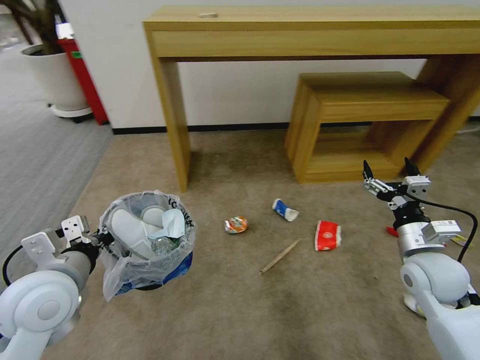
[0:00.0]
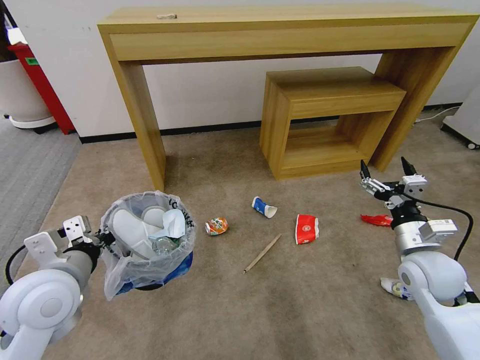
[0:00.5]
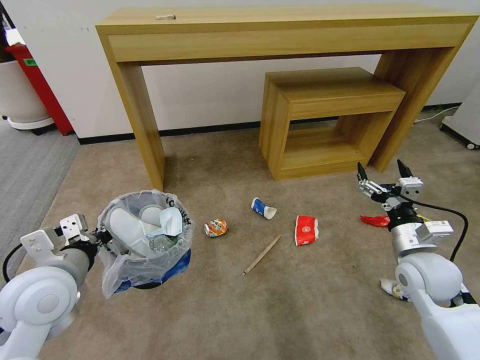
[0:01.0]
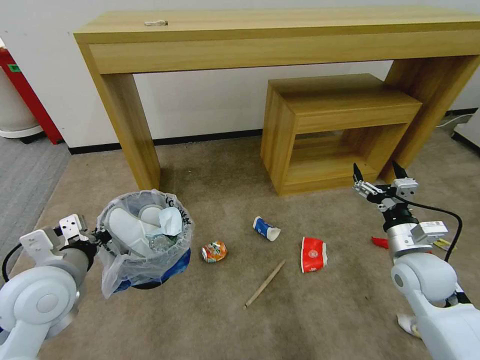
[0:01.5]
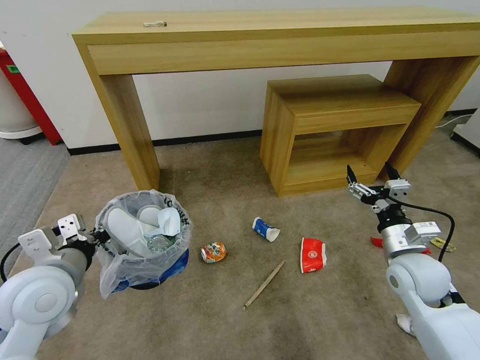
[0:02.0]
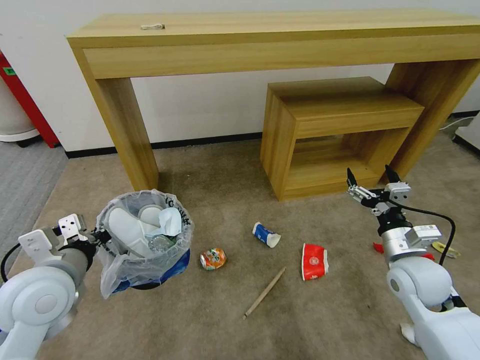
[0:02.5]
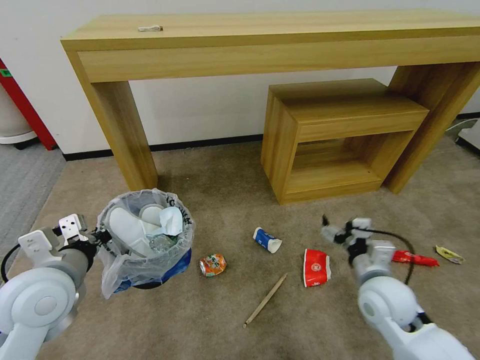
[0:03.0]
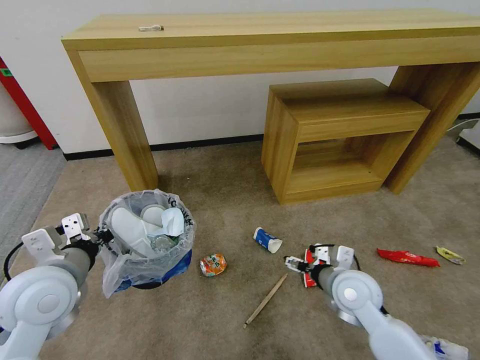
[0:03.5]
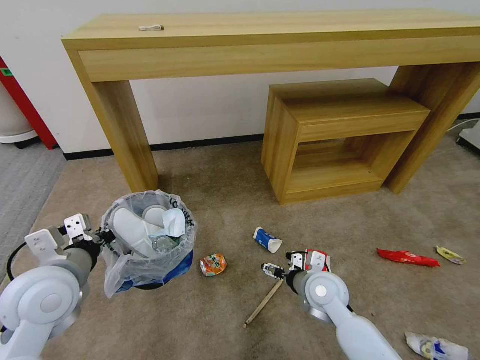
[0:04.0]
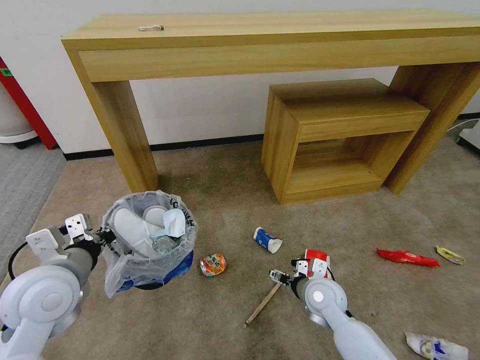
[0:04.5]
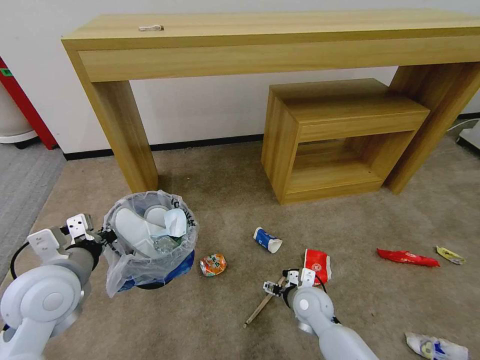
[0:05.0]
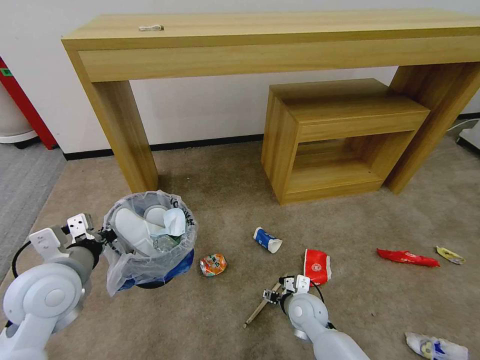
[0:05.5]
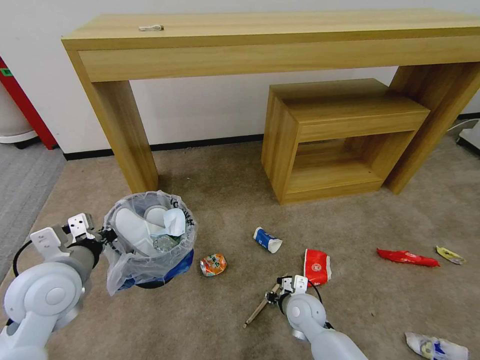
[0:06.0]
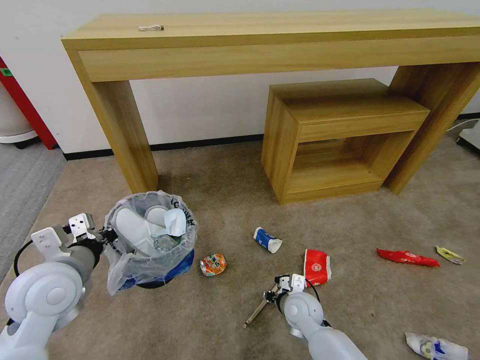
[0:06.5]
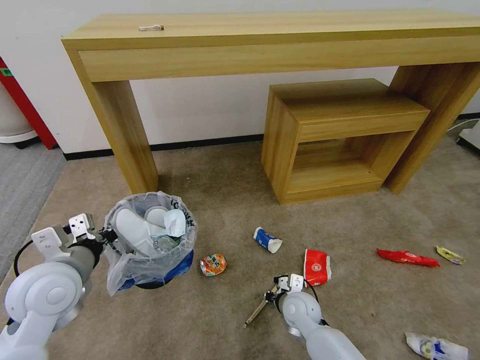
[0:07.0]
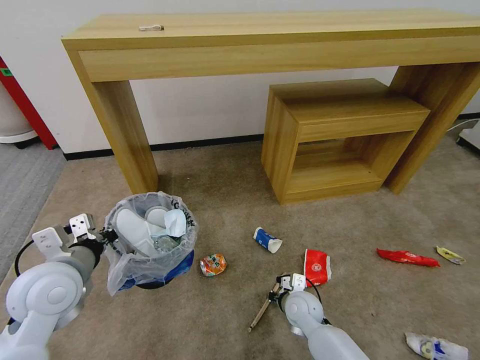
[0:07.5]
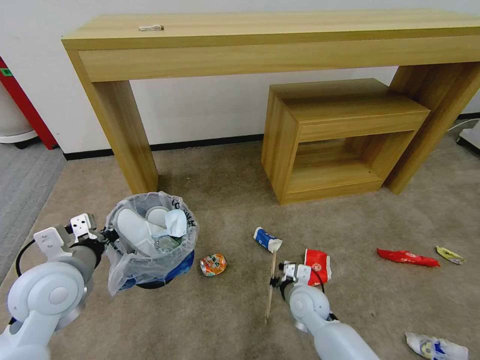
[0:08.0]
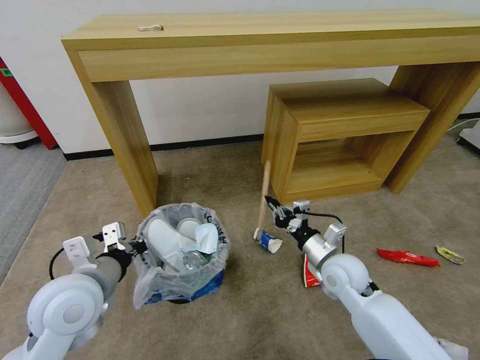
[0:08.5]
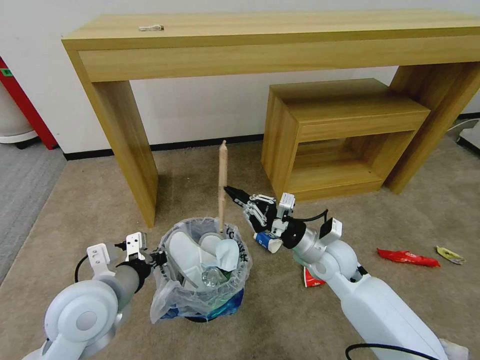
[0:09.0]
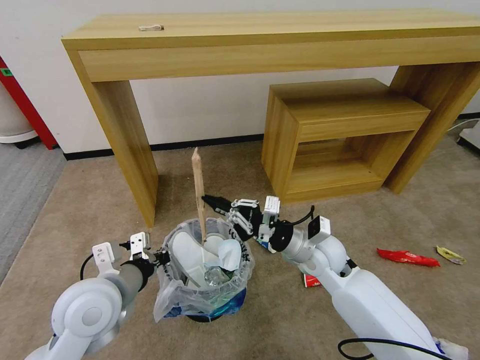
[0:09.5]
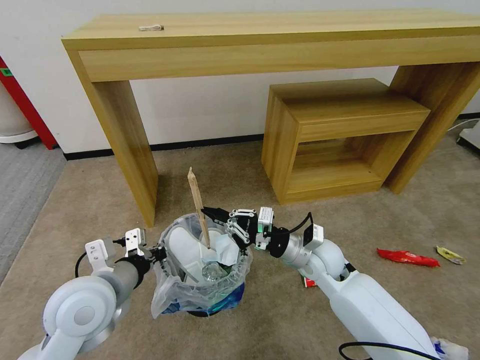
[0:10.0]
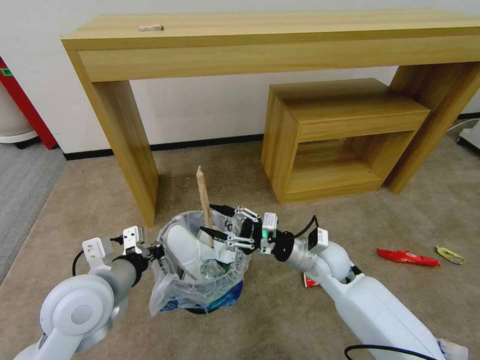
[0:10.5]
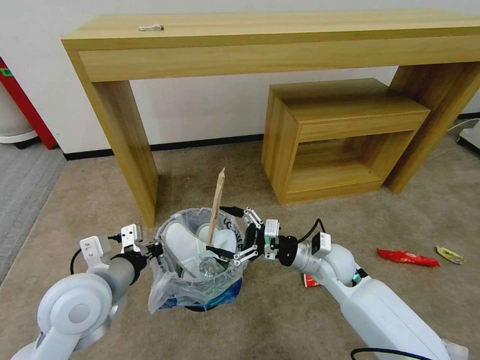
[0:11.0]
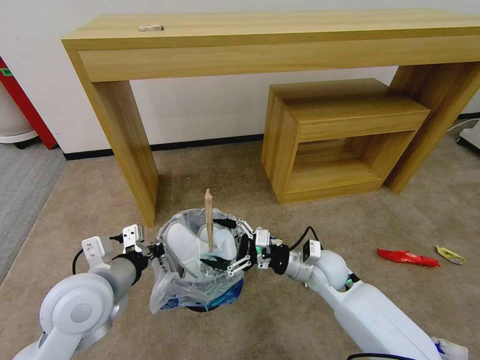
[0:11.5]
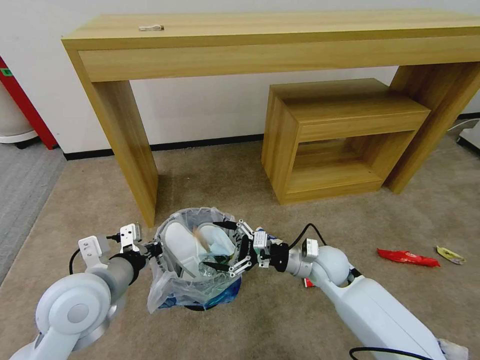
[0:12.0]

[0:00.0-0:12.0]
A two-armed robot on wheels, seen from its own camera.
Task of the whole recording: Pick up the trash bin and place the garbage on the floor into it.
0:02.0 to 0:04.0: The right gripper goes about 20 cm to the left and downward.
0:04.0 to 0:06.0: The right gripper heads downward, covering about 10 cm, and closes.
0:06.0 to 0:08.0: The right gripper closes.
0:08.0 to 0:10.0: The right gripper shifts about 15 cm upward, while the left gripper heads to the right, covering roughly 5 cm.
0:10.0 to 0:12.0: The right gripper opens up.

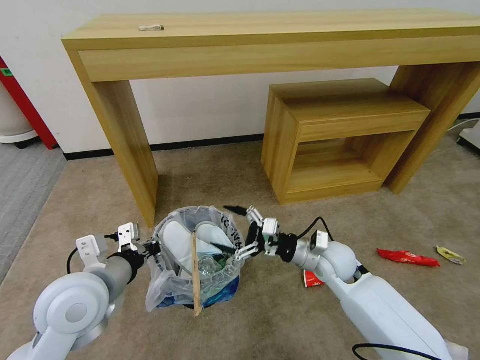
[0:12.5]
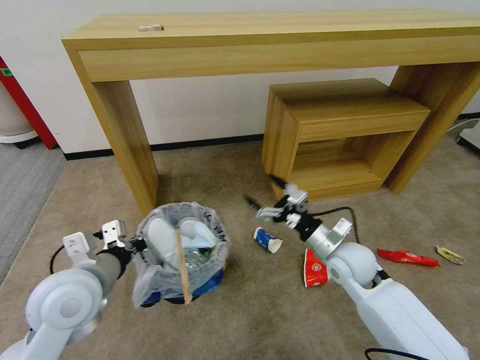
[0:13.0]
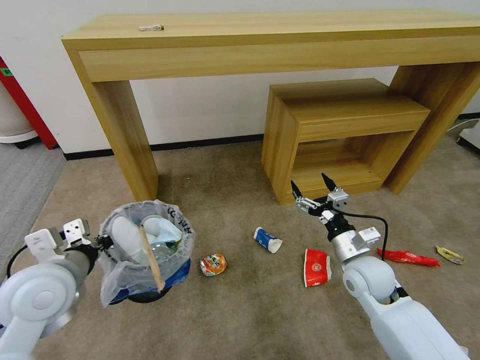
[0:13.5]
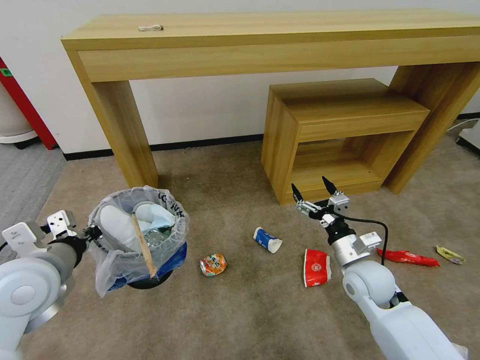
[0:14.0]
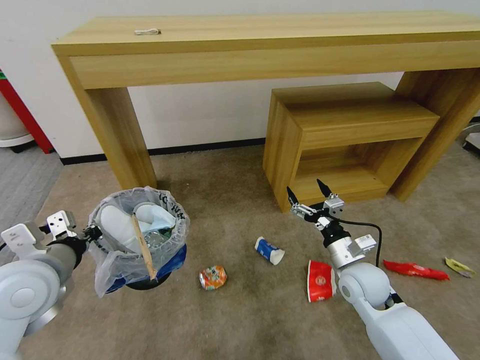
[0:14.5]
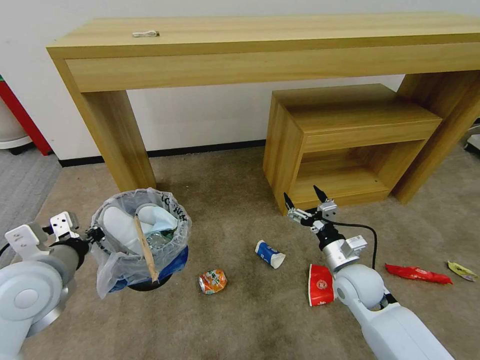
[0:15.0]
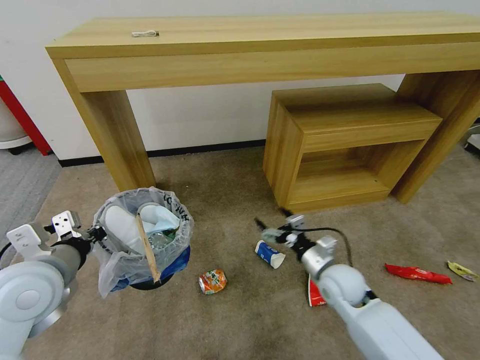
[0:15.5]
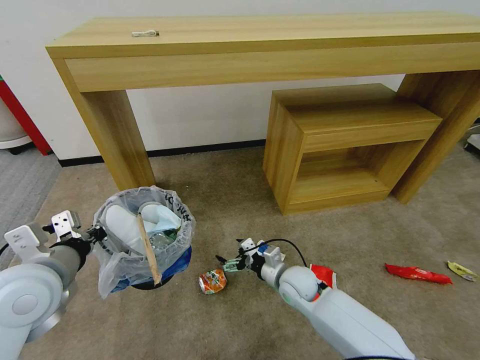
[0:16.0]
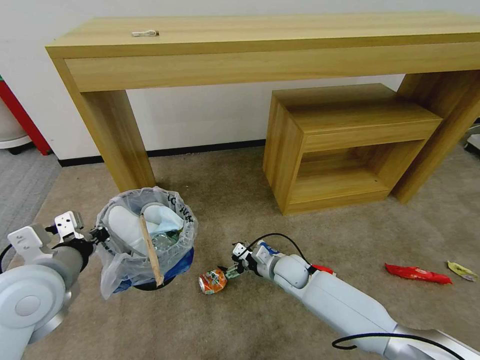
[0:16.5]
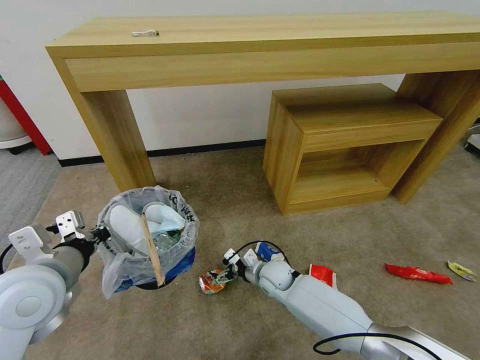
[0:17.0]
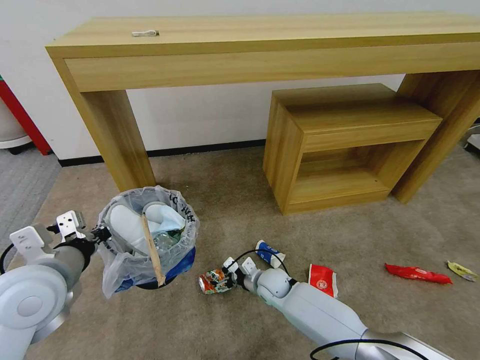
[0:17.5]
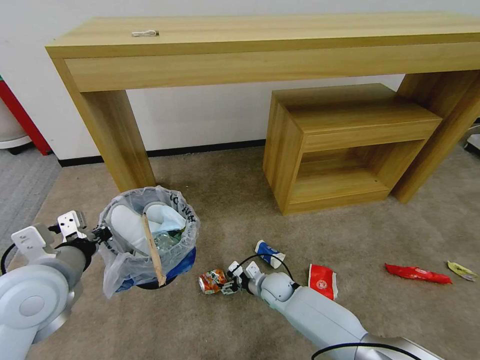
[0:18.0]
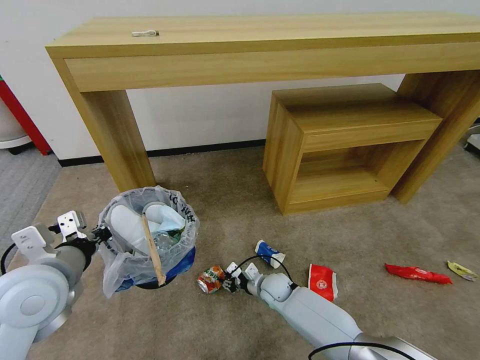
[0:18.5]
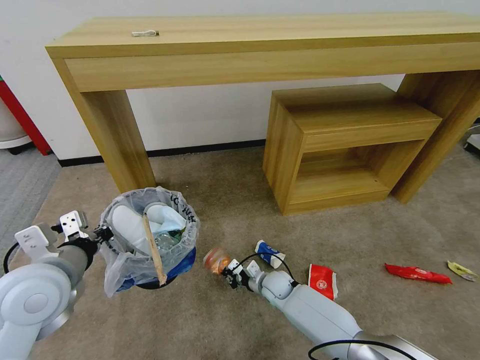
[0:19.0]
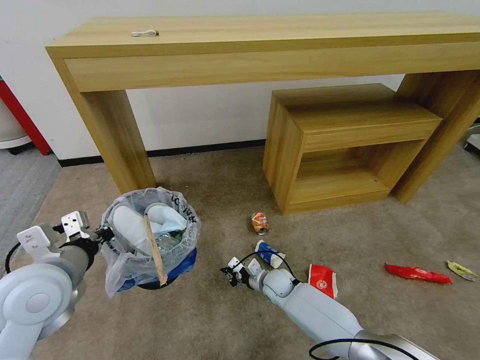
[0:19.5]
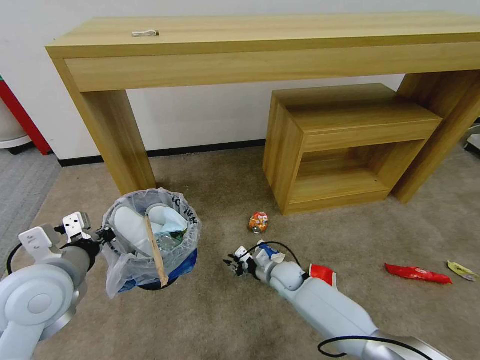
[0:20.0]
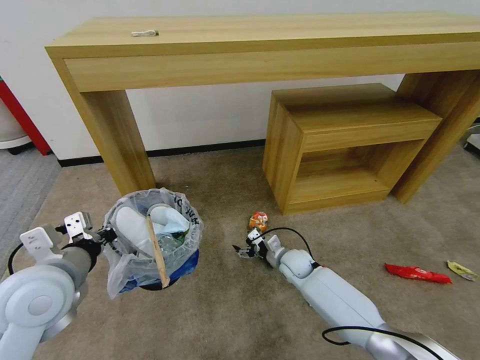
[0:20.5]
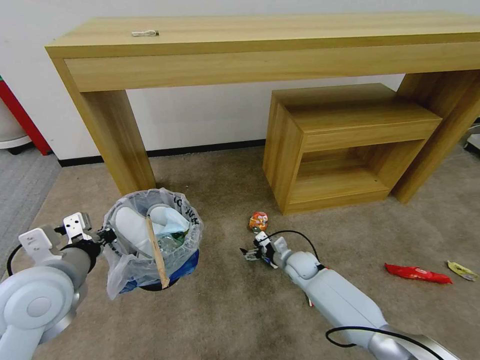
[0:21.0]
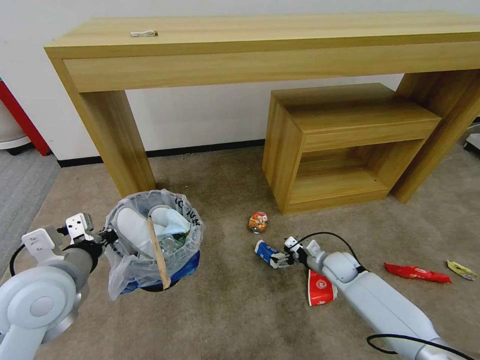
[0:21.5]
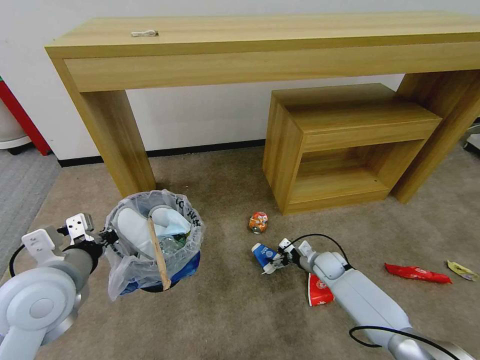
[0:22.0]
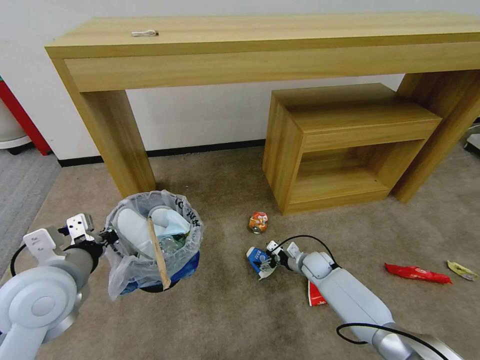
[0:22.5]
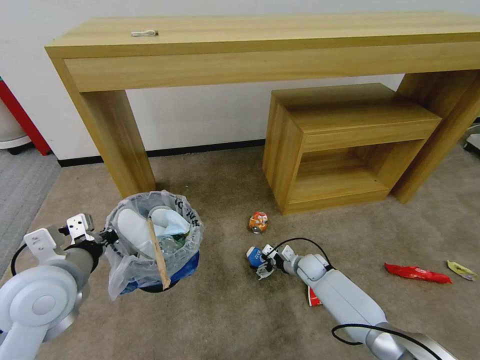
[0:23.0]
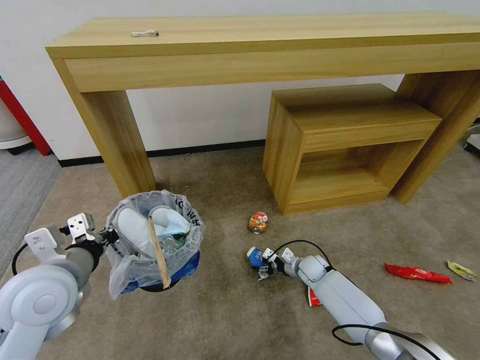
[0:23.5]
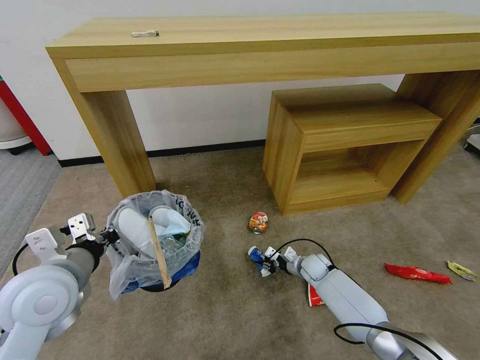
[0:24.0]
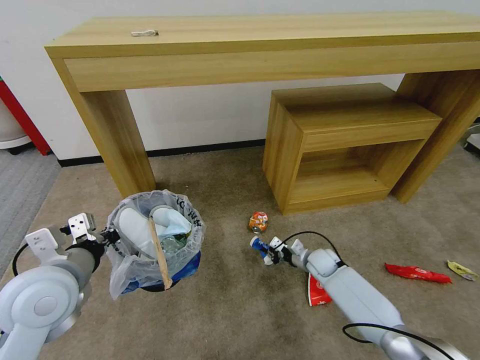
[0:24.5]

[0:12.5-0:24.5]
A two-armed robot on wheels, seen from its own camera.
Task of the whole recording: Pick up the trash bin and place the garbage on the floor into it.
0:12.5 to 0:14.5: The left gripper is displaced to the left by roughly 5 cm. Meanwhile the right gripper travels to the right by some 5 cm.
0:14.5 to 0:16.5: The right gripper is displaced to the left, downward and forward by some 20 cm.
0:16.5 to 0:18.5: The right gripper is displaced downward by roughly 10 cm, and closes.
0:18.5 to 0:20.5: The right gripper goes some 10 cm upward and to the right, and opens up.
0:20.5 to 0:22.5: The right gripper heads to the right, covering approximately 10 cm.
0:22.5 to 0:24.5: The right gripper closes its fingers.

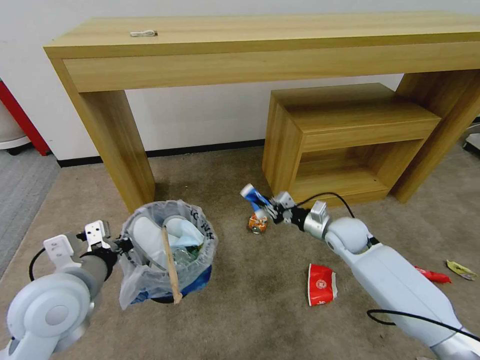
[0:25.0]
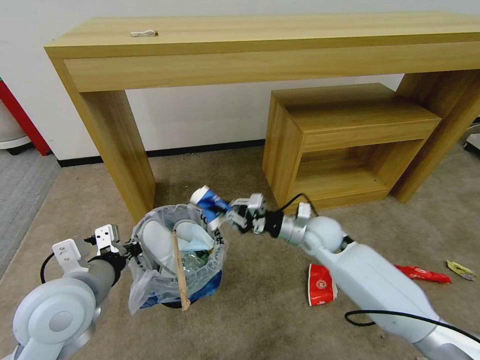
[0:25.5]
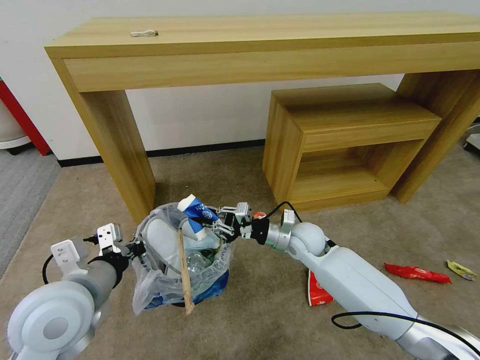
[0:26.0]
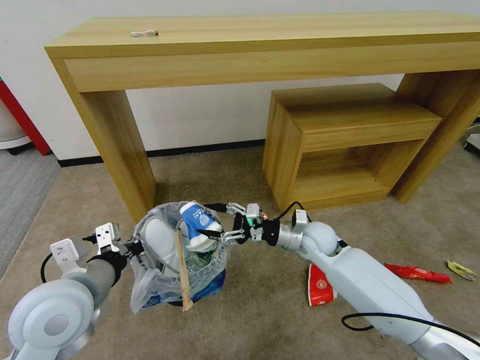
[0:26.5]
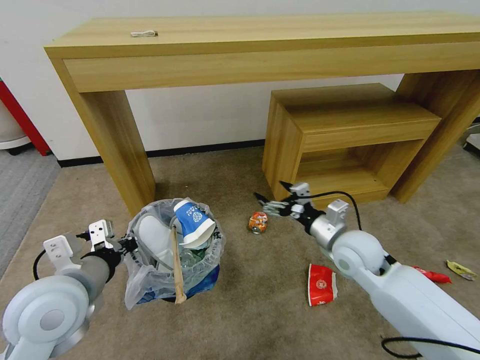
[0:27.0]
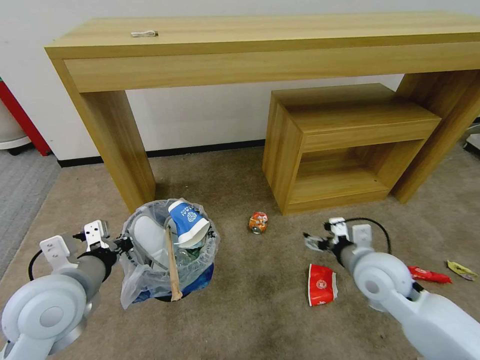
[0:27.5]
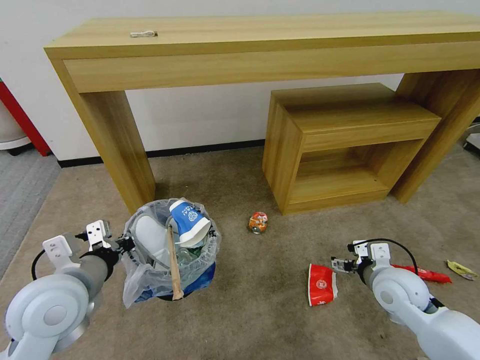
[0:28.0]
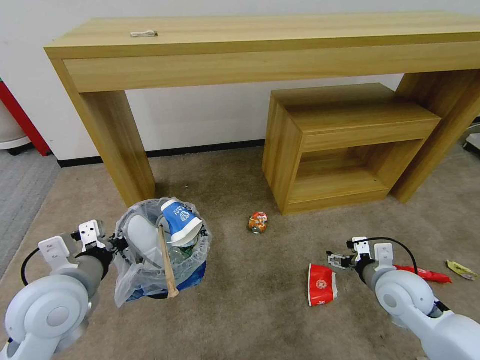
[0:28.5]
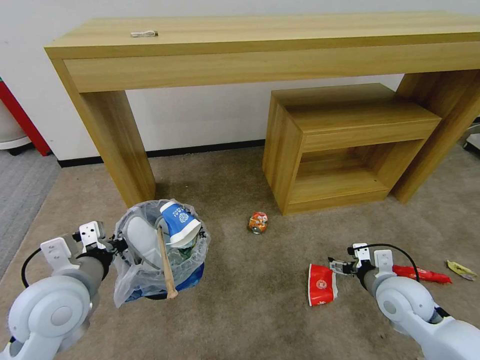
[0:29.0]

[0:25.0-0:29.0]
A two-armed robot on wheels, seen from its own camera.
Task of the whole recording: Pick up the trash bin and place the garbage on the floor into it.
0:25.0 to 0:27.0: The right gripper heads backward and upward, covering some 10 cm, goes to the left and returns, approximately 10 cm each way, and opens up.
0:27.0 to 0:29.0: The right gripper heads to the right, backward and downward, covering some 15 cm.
